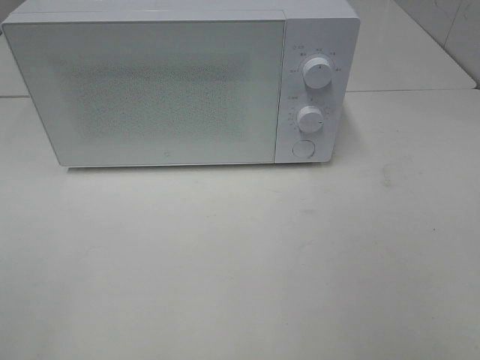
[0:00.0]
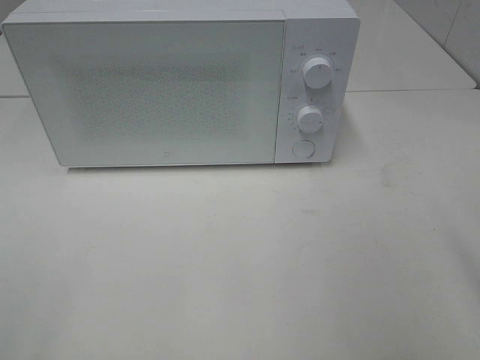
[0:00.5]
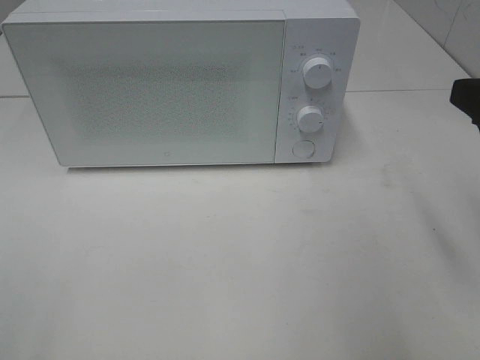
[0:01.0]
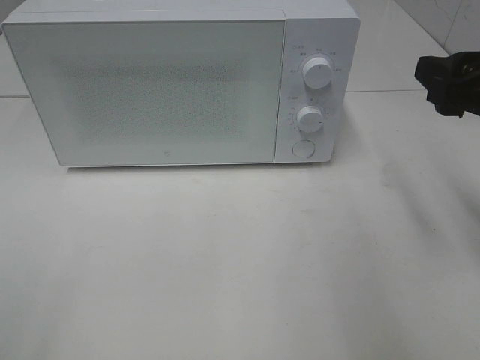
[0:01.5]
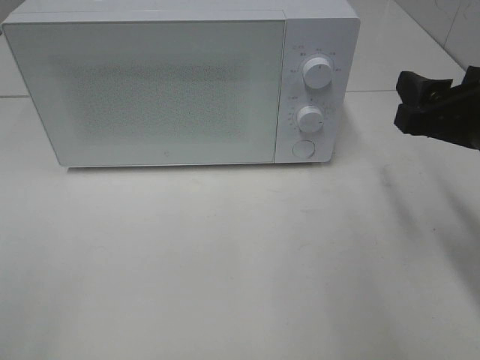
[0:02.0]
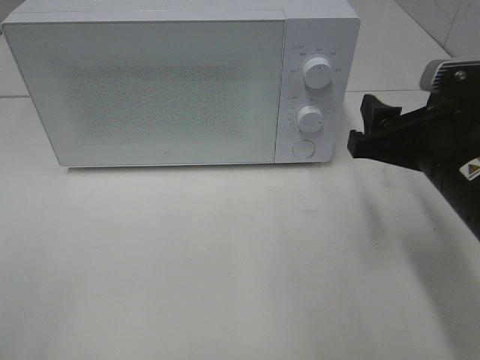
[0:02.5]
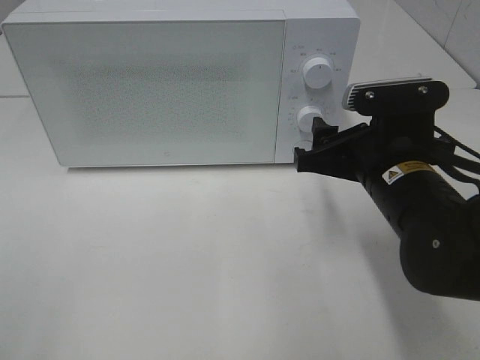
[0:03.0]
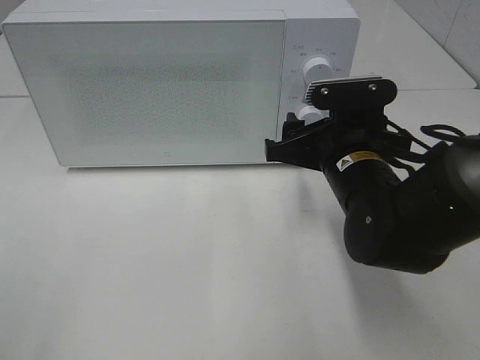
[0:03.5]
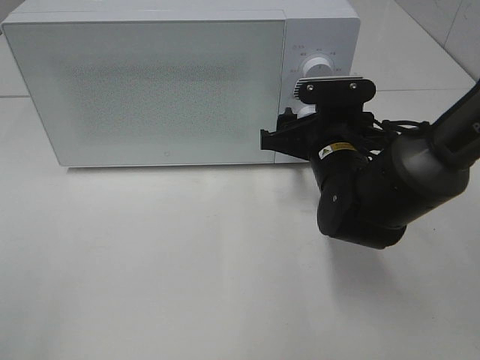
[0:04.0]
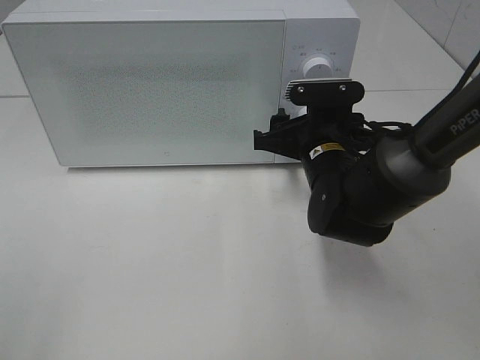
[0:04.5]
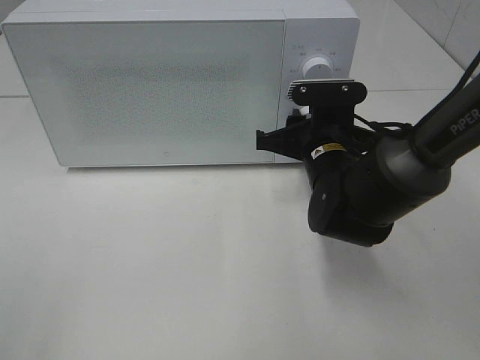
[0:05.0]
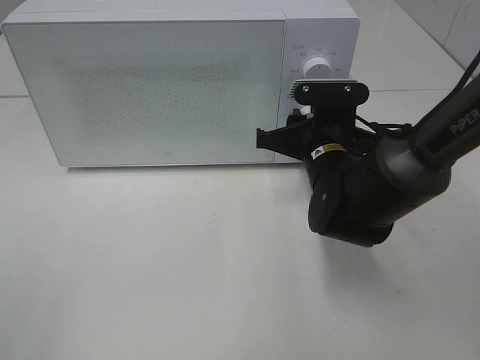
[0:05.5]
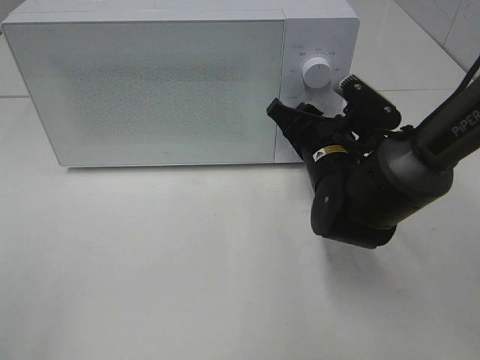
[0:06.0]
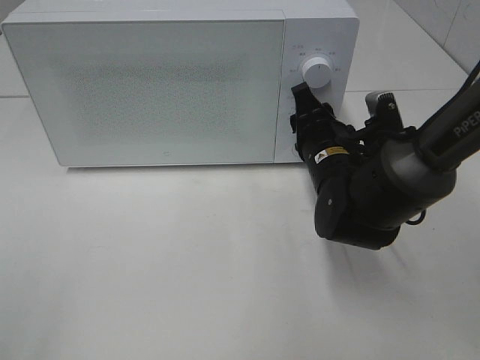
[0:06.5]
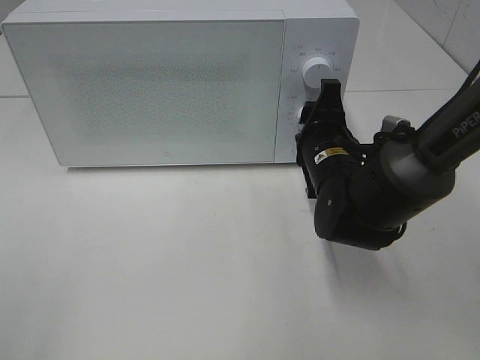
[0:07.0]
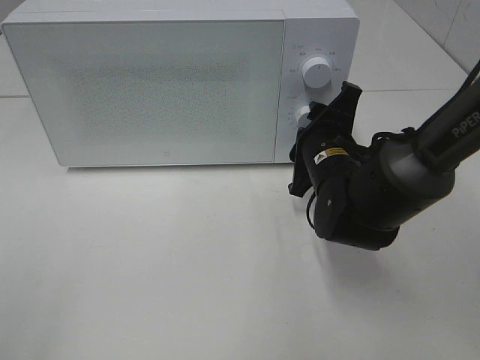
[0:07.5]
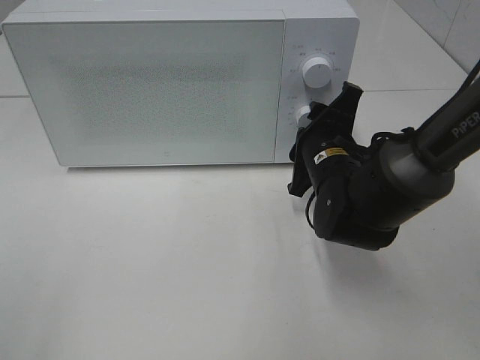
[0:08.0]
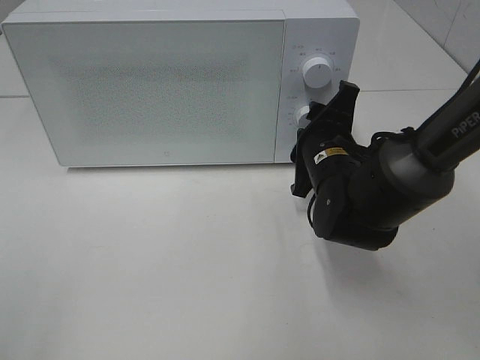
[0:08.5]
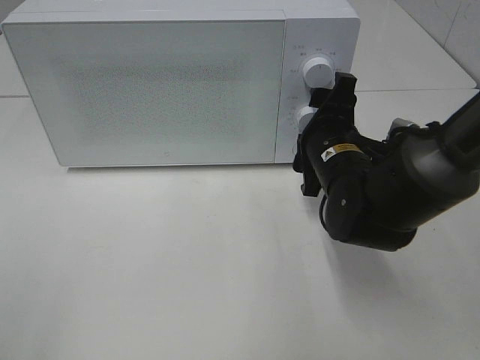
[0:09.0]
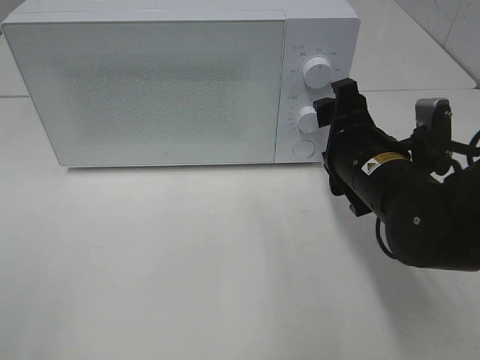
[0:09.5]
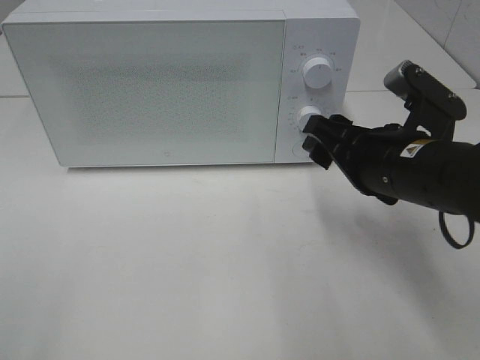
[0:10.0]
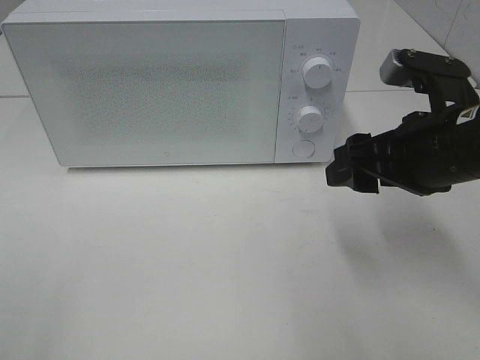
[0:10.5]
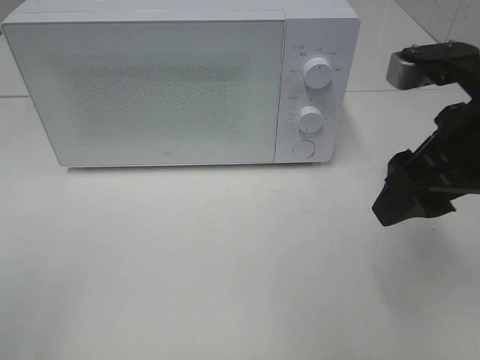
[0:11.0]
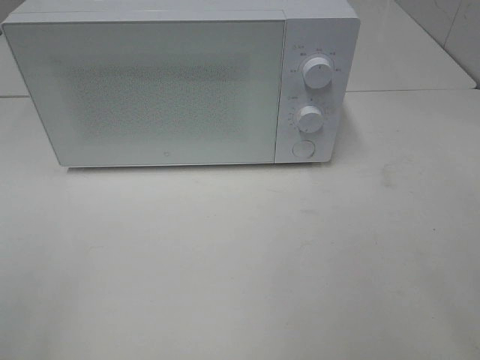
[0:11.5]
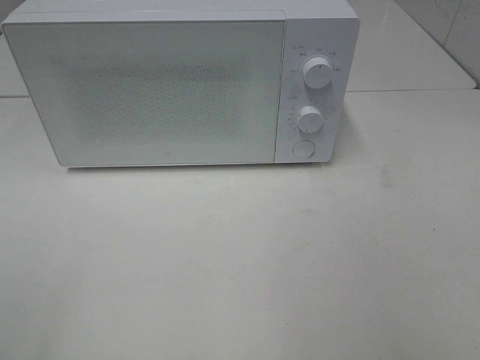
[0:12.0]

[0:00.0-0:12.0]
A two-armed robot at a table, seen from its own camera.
Task of the whole recording: Heat the burger.
Step, 0:00.0 to 0:08.5: Right hand: twist timer button.
0:00.0 to 0:02.0: The right gripper moves forward and downward, some 20 cm.
0:02.0 to 0:04.0: The right gripper moves to the left, forward and downward, roughly 20 cm.
0:08.0 to 0:10.0: The right gripper shifts approximately 10 cm backward and upward.
0:10.0 to 0:12.0: The right gripper shifts approximately 30 cm backward, upward and to the right.

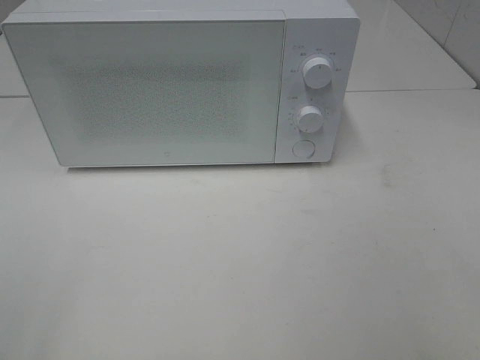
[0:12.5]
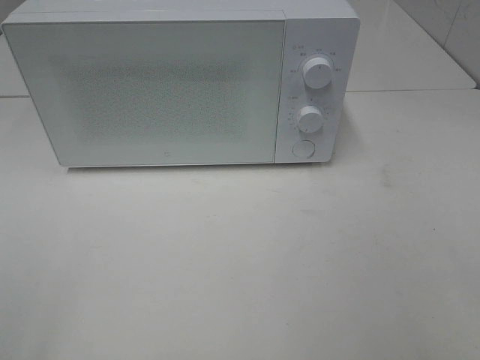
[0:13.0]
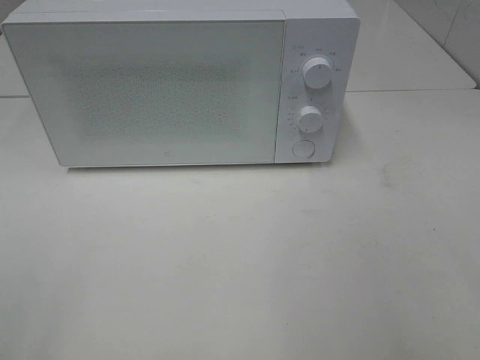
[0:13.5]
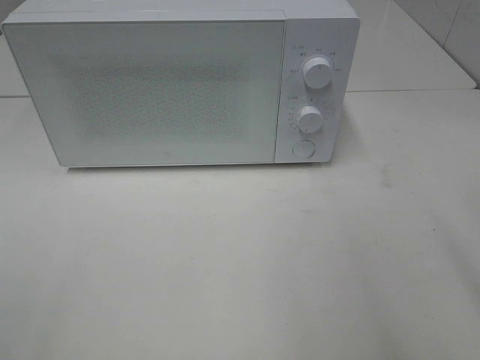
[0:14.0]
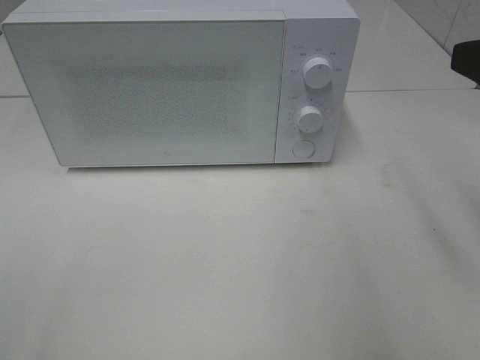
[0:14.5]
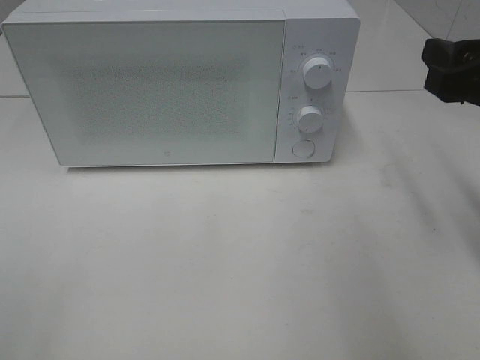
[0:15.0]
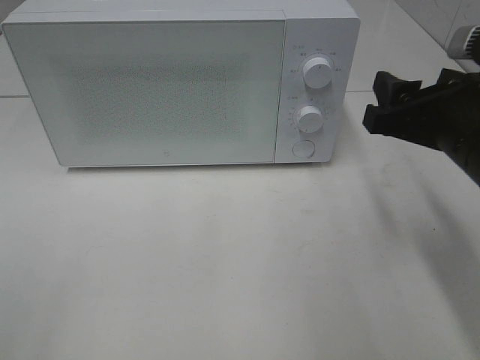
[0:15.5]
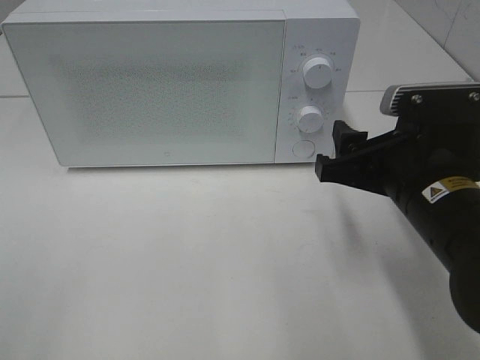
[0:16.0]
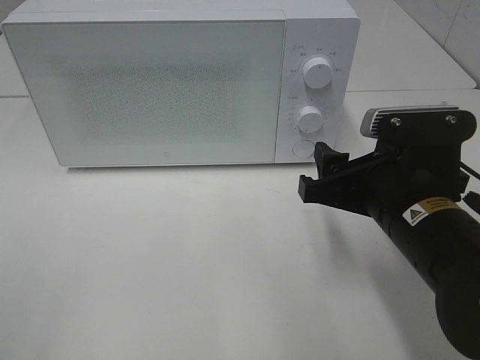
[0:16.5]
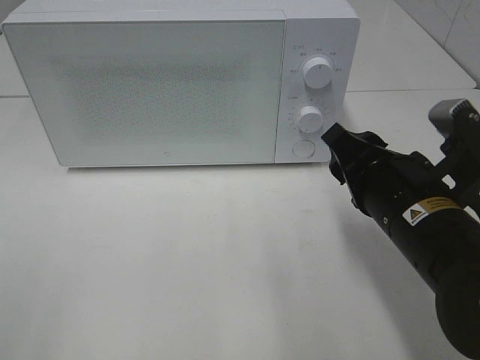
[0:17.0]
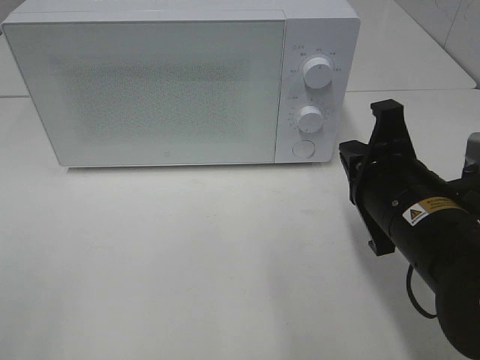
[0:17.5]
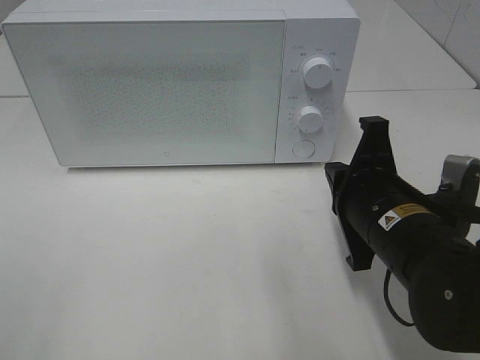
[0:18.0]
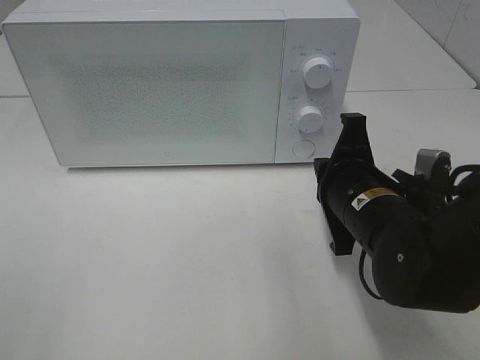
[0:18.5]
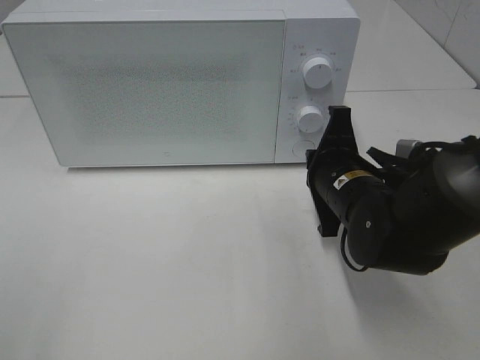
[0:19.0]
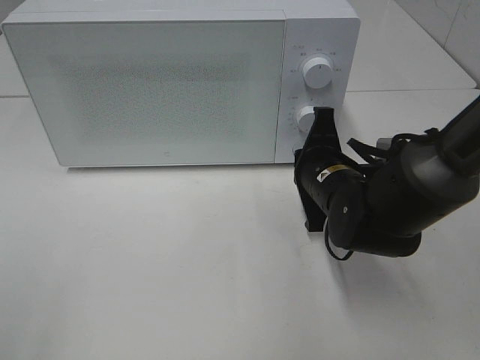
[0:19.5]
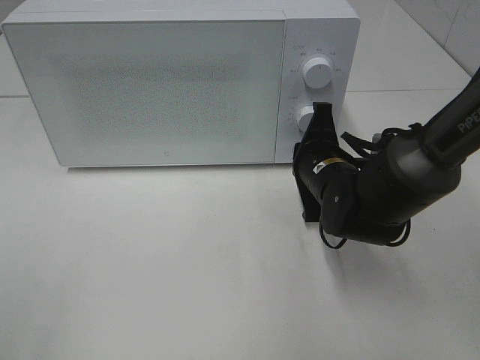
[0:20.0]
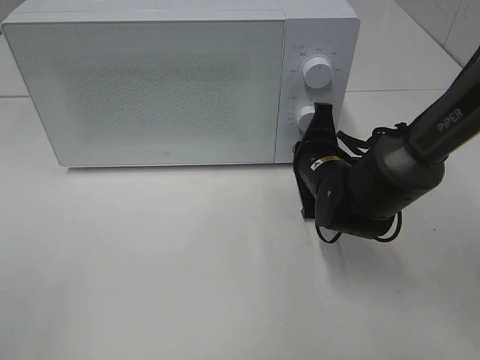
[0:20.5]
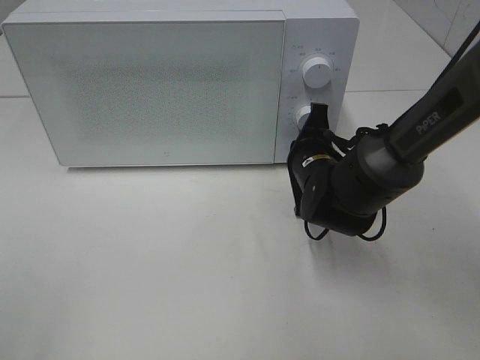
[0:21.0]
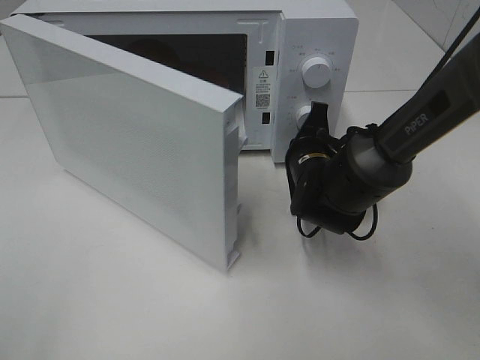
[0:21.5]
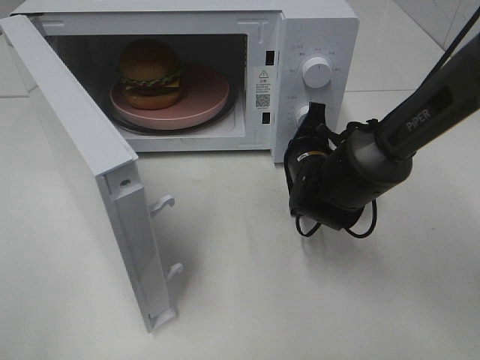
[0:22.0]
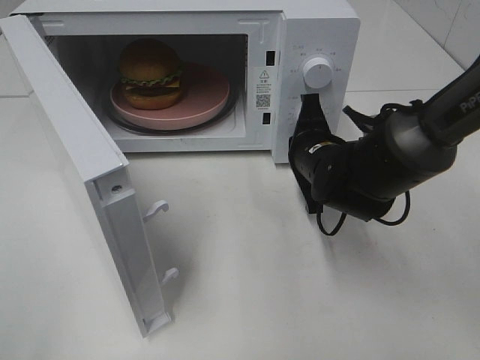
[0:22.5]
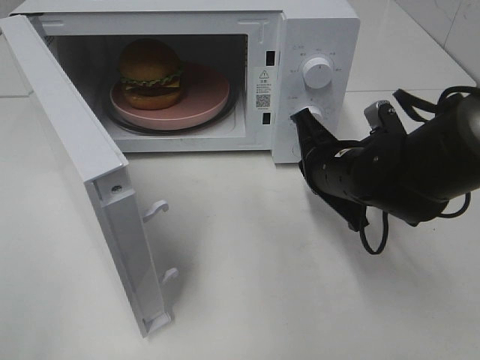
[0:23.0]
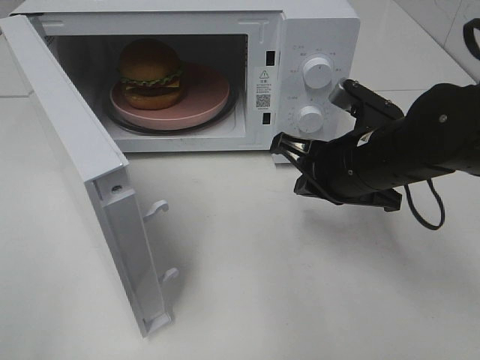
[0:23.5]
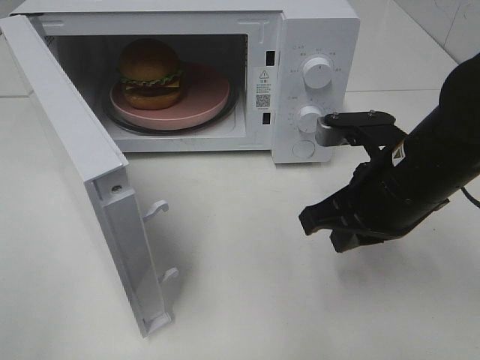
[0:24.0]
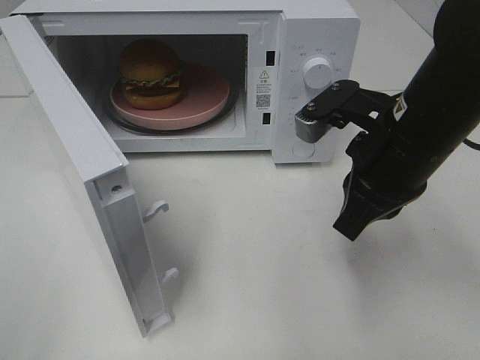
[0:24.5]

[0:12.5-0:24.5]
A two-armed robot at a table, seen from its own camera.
Task of the whole recording: Heat the burger.
Step, 0:12.5 to 0:22.5: Right hand: press the switch.
0:12.5 to 0:14.5: The right gripper shifts some 20 cm forward.
0:14.5 to 0:16.5: The right gripper travels downward and to the left by about 20 cm.
0:16.5 to 0:18.5: The right gripper shifts by about 5 cm, and closes up.
0:18.5 to 0:20.5: The right gripper goes approximately 10 cm forward.
0:22.5 to 0:24.5: The right gripper goes approximately 15 cm upward and backward.

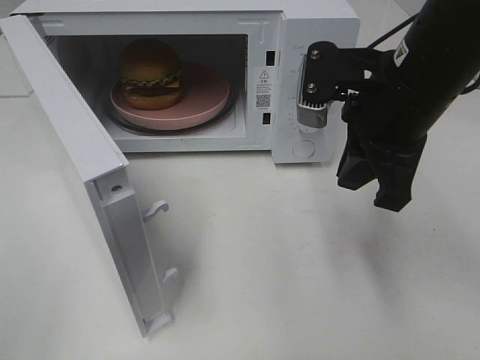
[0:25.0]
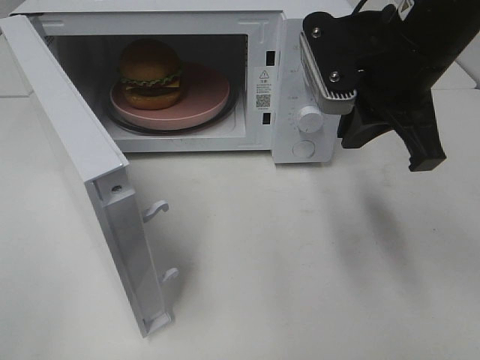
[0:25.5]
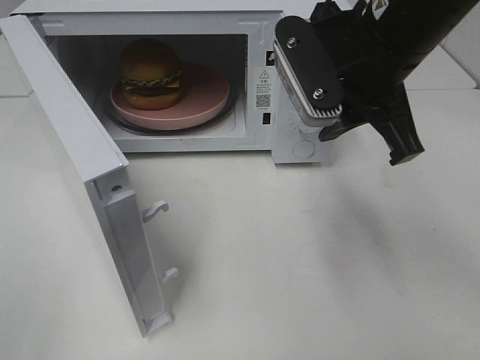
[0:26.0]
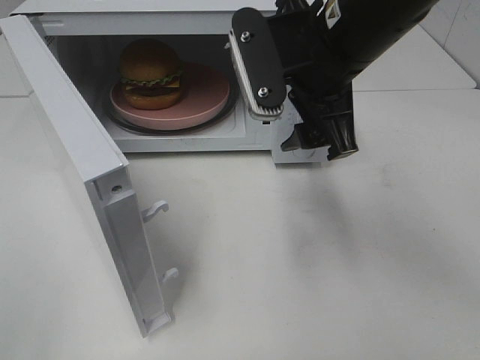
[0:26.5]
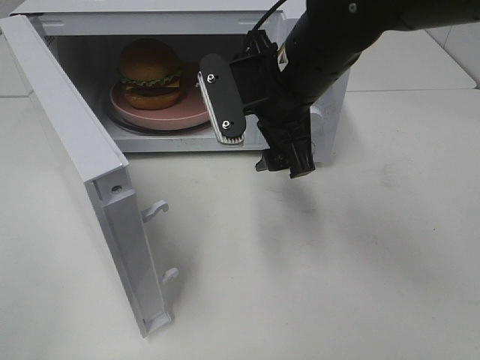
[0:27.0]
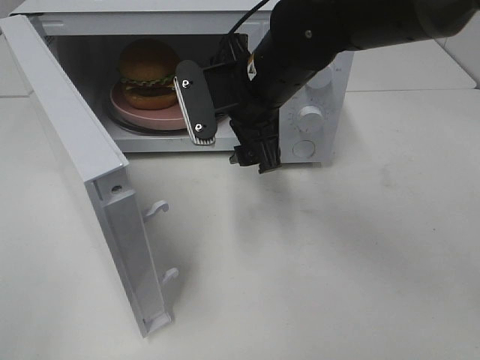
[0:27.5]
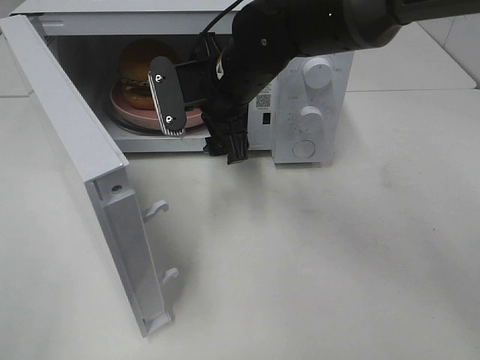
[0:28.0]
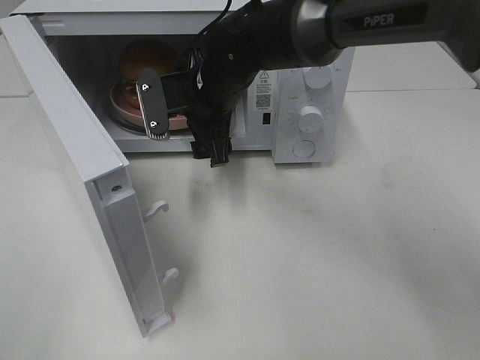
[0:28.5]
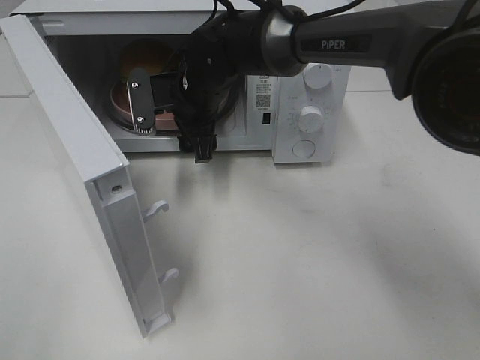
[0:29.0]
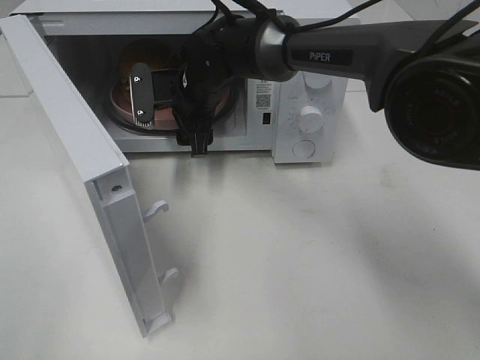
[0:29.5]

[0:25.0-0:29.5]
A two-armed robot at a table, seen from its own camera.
Task of the whole recording: Heat the burger.
0:25.0 to 0:27.0: The right gripper travels to the left by approximately 10 cm, and opens its fingers.
0:27.0 to 0:29.5: The right gripper is displaced forward, to the left and downward by approximately 20 cm.
